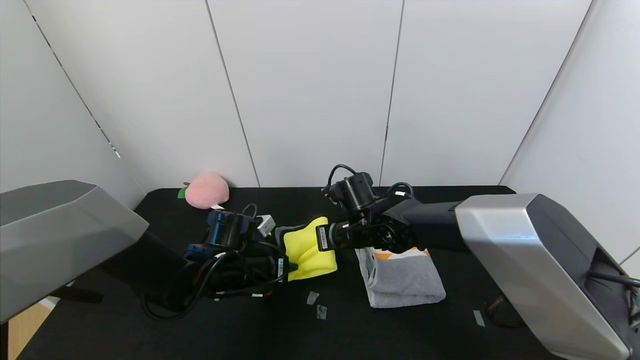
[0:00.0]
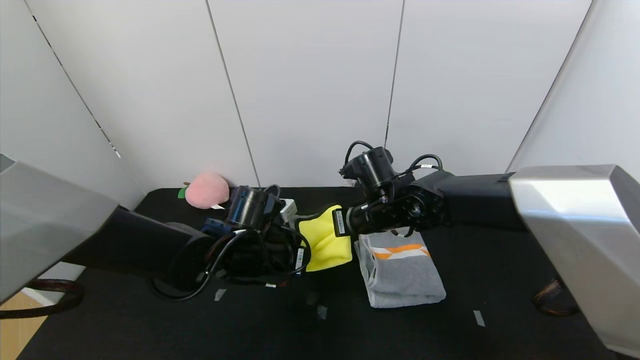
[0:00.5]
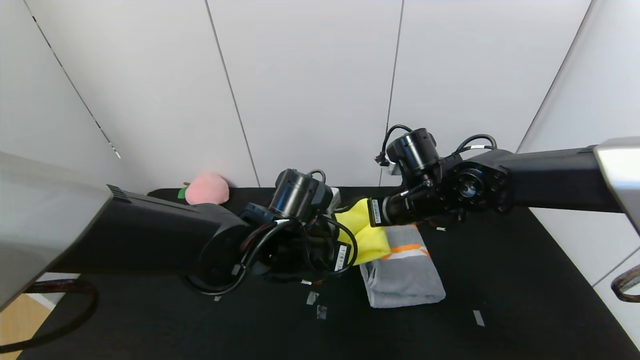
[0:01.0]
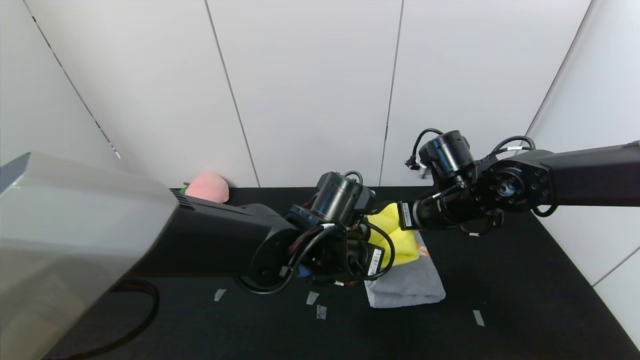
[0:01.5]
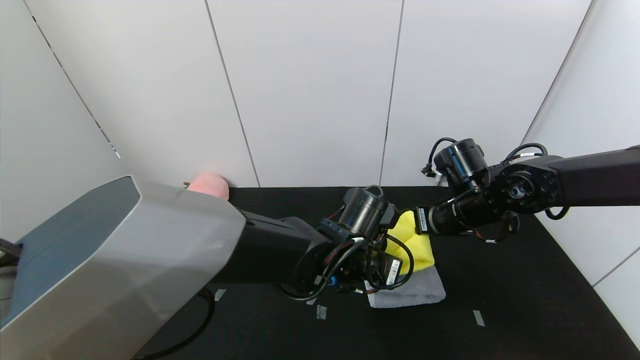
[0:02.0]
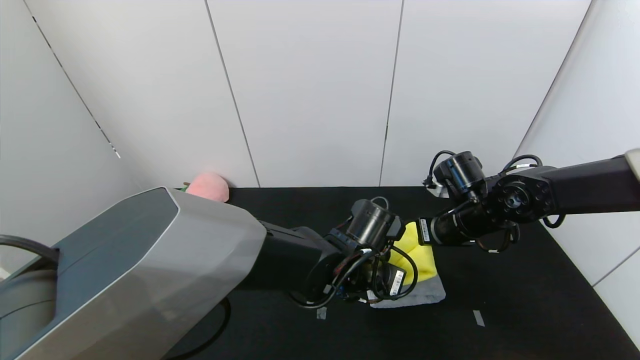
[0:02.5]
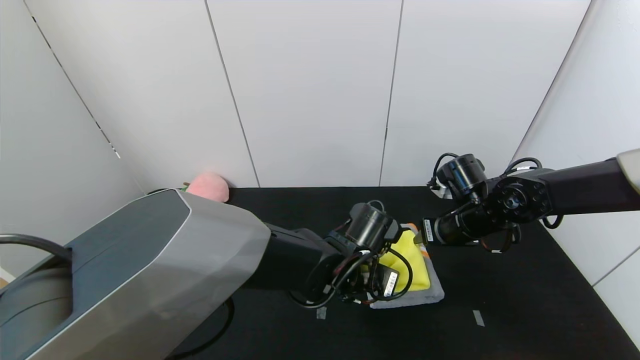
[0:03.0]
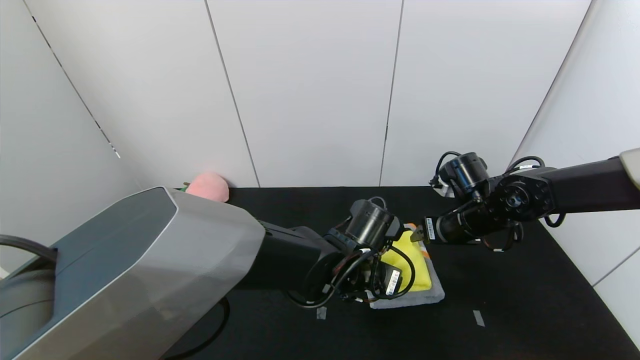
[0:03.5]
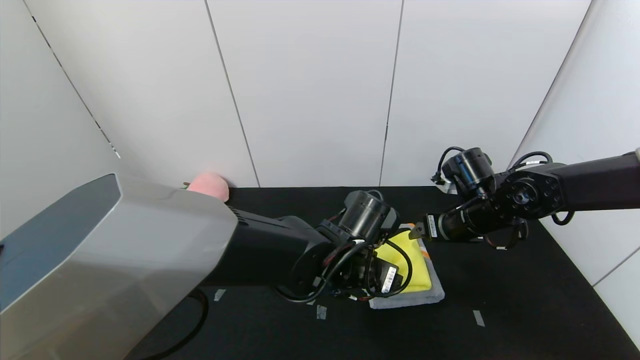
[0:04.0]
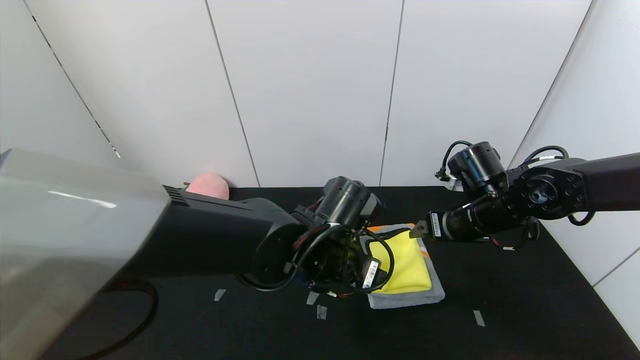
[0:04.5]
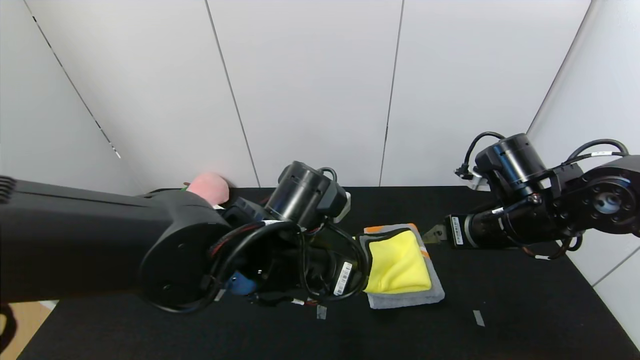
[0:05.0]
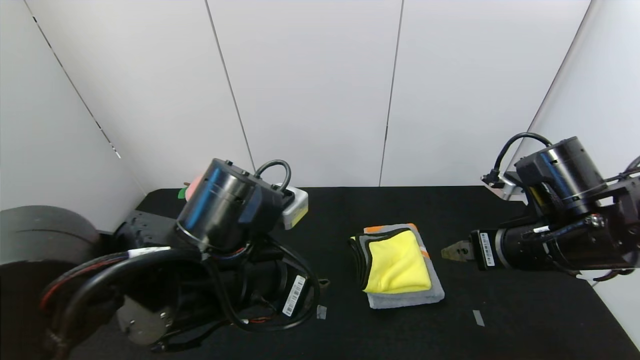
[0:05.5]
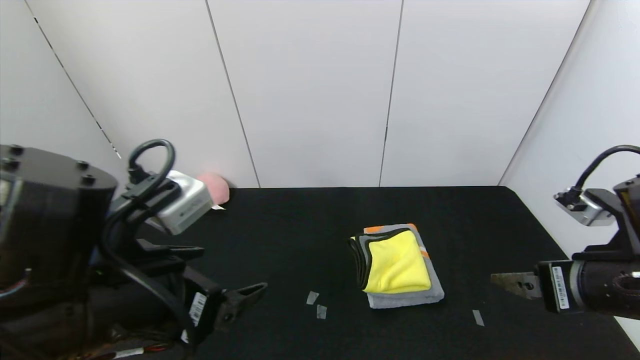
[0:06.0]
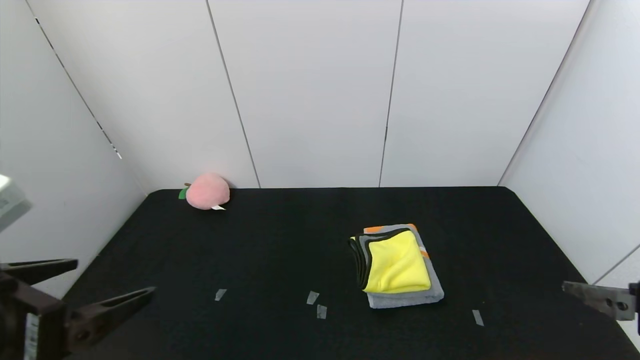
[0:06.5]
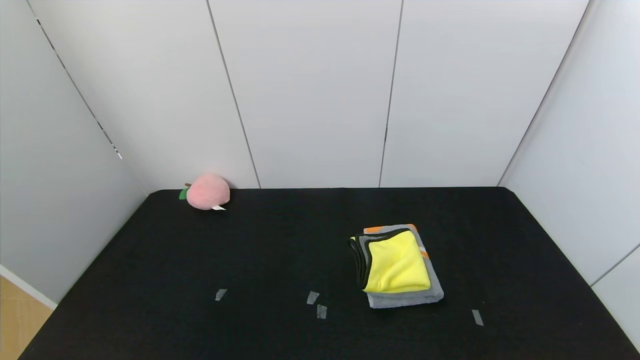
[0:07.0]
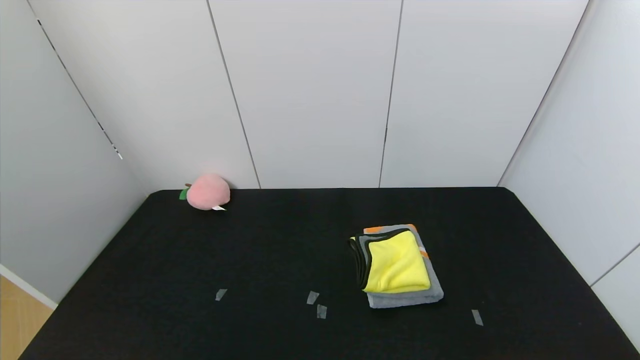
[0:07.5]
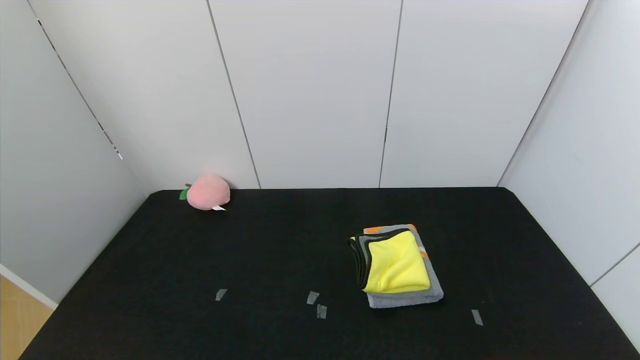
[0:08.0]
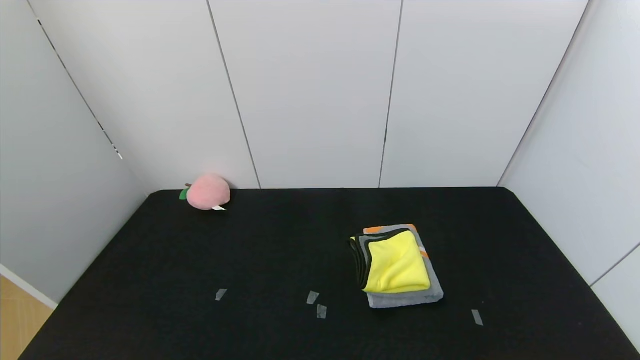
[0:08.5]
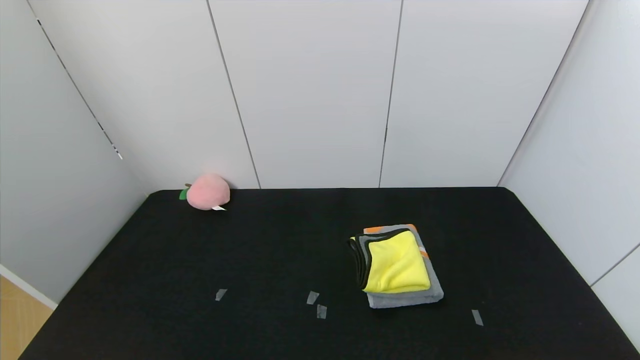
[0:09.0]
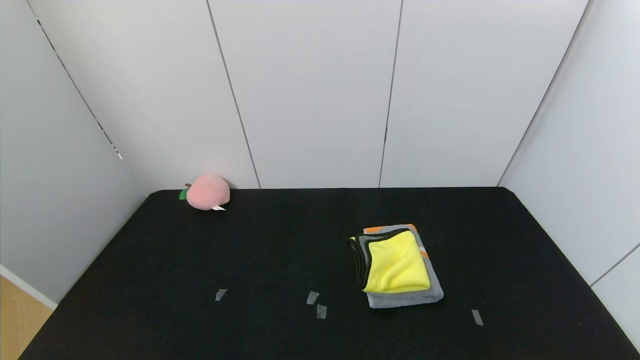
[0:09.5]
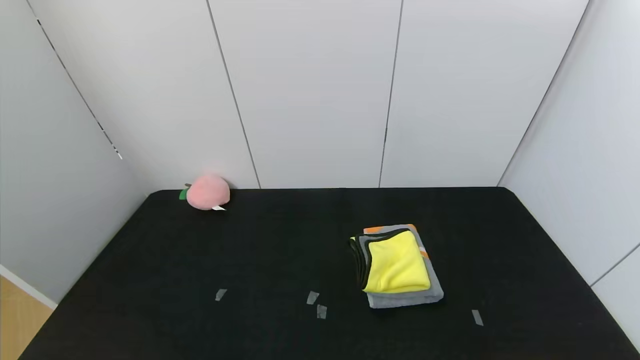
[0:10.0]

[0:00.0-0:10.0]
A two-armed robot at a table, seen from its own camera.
Task of the whole recording: Use the gripper to fold the yellow towel and grey towel in half twice,then put the yellow towel on the grey towel.
Step, 0:00.0 to 0:03.5: Place the yellow towel on the gray towel with the left gripper.
Step, 0:00.0 to 0:03.5: Place the yellow towel on the gray towel with the right gripper.
0:00.0 to 0:02.0: Both grippers travel together to the right, some 20 cm.
0:02.0 to 0:04.0: The right gripper opens; the left gripper opens.
0:04.0 to 0:06.0: The right gripper is displaced backward by roughly 20 cm, while the left gripper heads to the left, backward and upward, covering approximately 25 cm.
0:06.0 to 0:08.0: The right gripper shifts roughly 25 cm backward. The left gripper goes approximately 25 cm backward and to the left.
